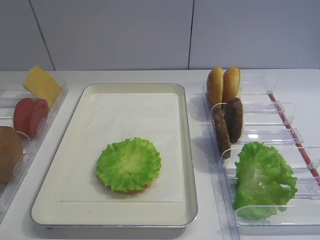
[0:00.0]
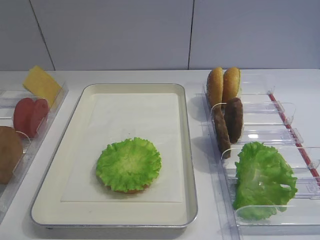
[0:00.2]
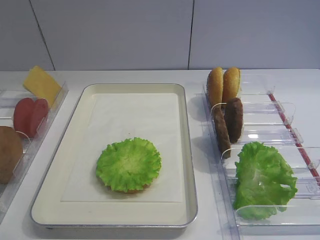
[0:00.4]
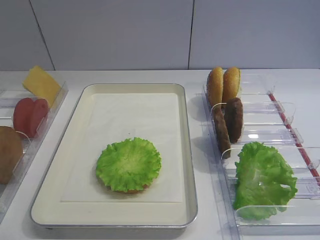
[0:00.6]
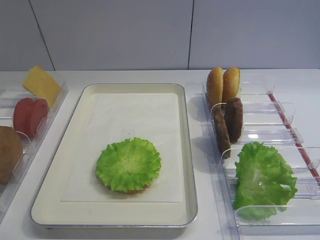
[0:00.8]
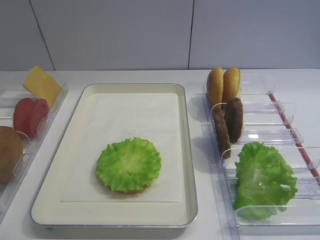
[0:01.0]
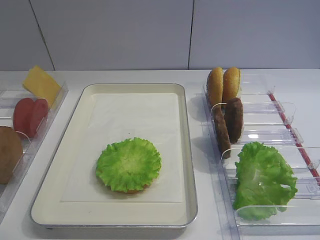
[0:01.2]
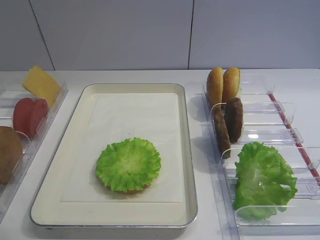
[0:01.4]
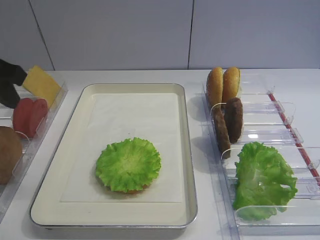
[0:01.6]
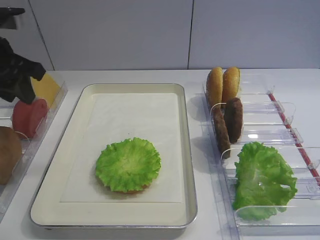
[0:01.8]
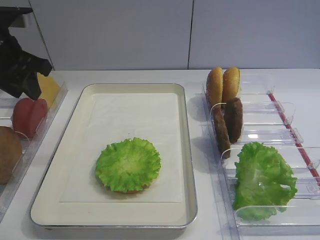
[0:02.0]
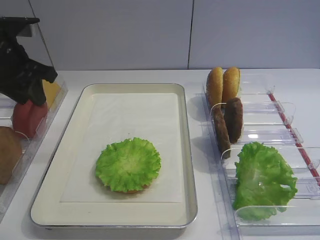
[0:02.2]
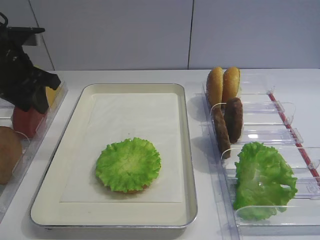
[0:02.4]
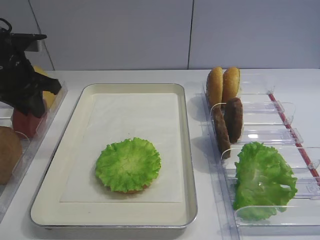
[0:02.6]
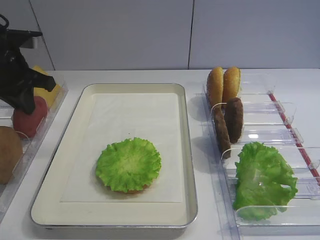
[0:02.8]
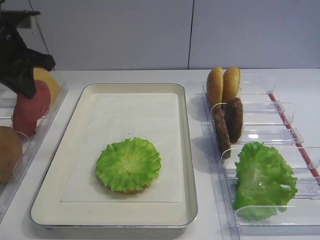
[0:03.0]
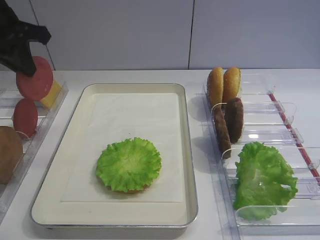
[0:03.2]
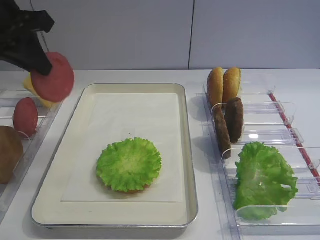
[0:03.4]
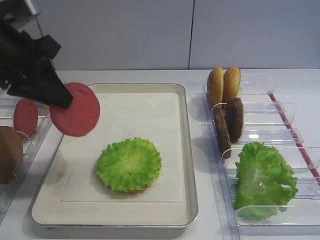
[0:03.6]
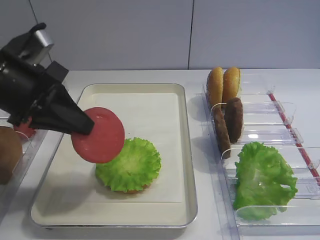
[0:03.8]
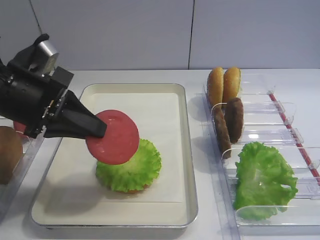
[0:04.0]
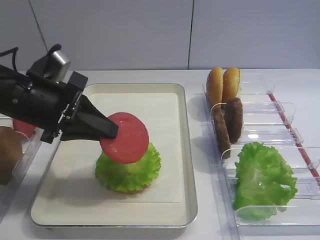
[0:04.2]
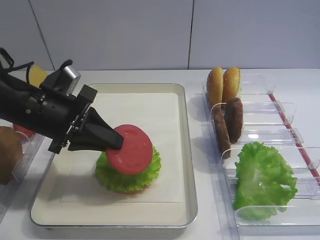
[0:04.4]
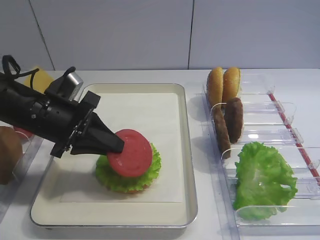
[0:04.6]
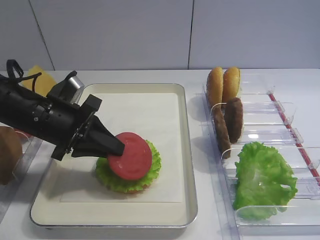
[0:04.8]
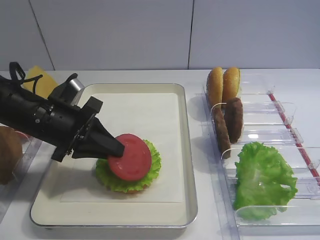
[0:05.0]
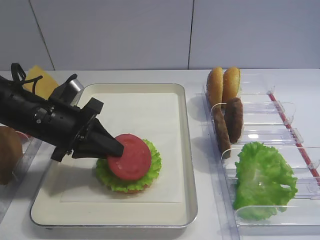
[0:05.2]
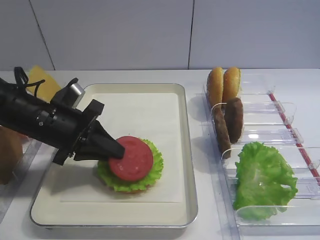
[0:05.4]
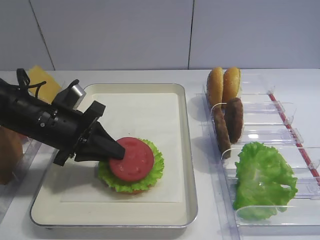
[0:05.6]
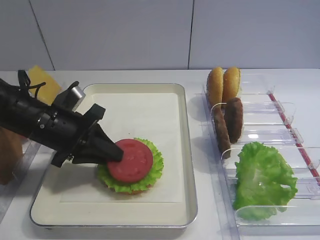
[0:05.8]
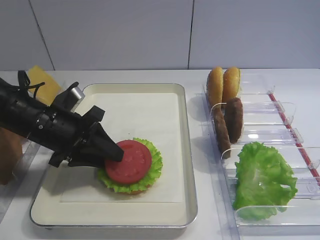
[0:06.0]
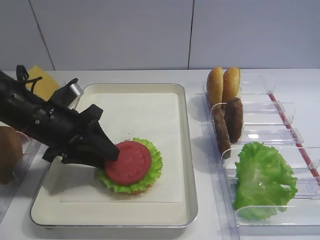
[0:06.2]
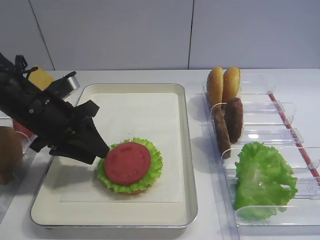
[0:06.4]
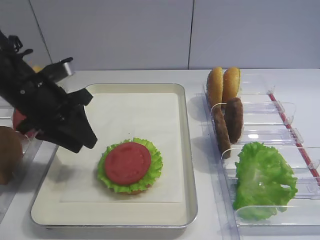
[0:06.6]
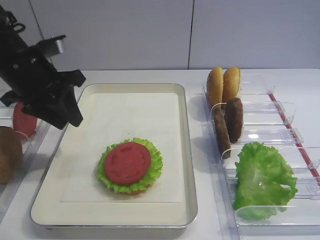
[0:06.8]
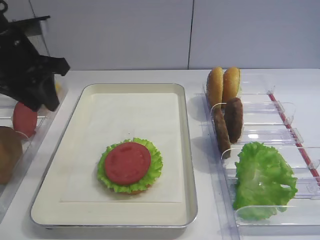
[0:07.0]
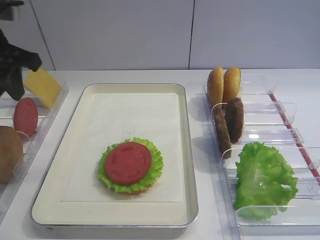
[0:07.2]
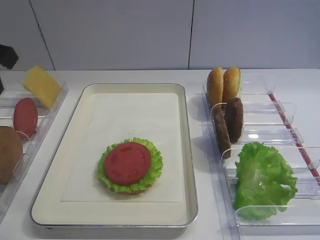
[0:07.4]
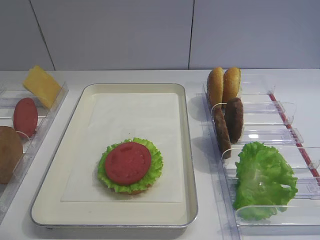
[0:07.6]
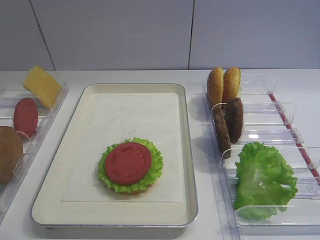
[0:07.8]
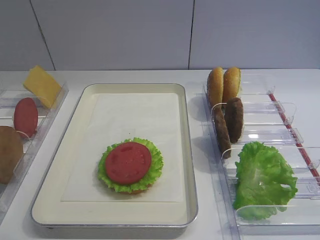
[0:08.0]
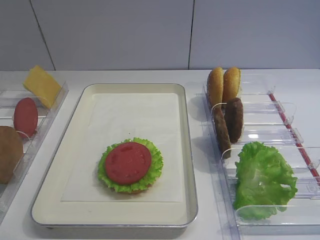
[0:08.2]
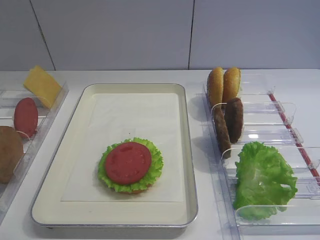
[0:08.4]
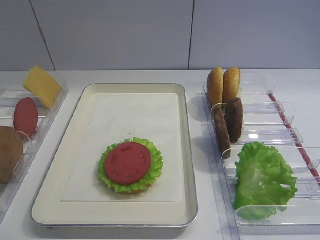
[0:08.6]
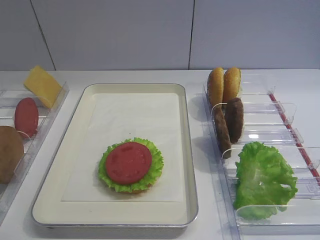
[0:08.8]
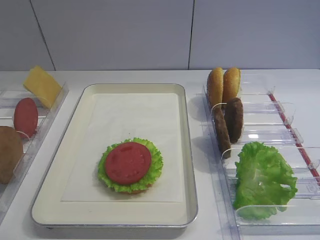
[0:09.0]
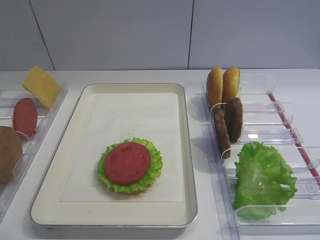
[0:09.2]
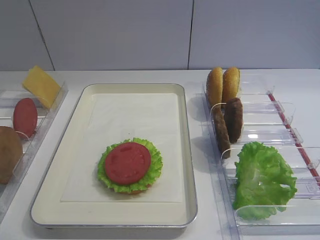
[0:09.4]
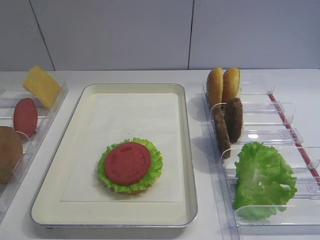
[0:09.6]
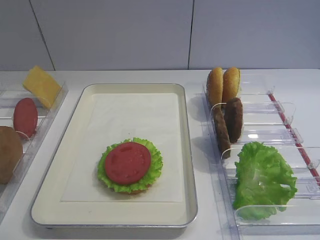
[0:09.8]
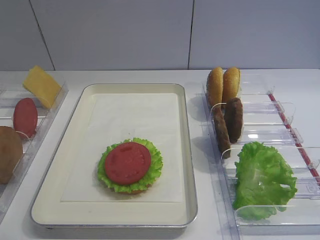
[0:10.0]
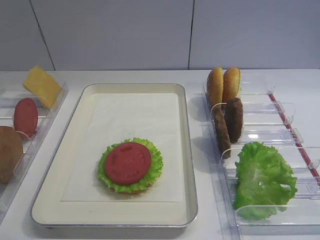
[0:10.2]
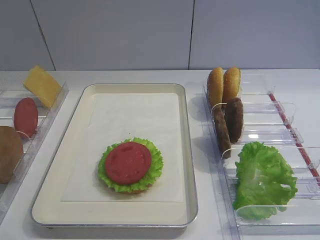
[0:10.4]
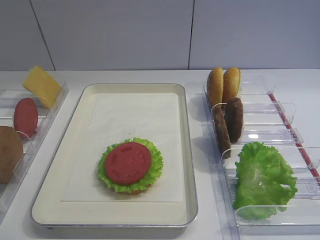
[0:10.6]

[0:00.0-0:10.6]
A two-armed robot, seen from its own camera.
Step, 0:00.0 to 0:03.0: Pick up the tomato slice with the left gripper.
Step, 0:03.2 to 0:06.4: Place the tomato slice on the lettuce leaf with the left gripper.
0:01.6 to 0:03.0: The left gripper moves forward, roughly 10 cm, and closes.
0:03.0 to 0:04.6: The left gripper heads downward, backward and to the right, covering approximately 15 cm.
0:04.6 to 0:06.0: The left gripper opens its fingers.
0:06.0 to 0:07.6: The left gripper shifts roughly 20 cm upward and to the left.
